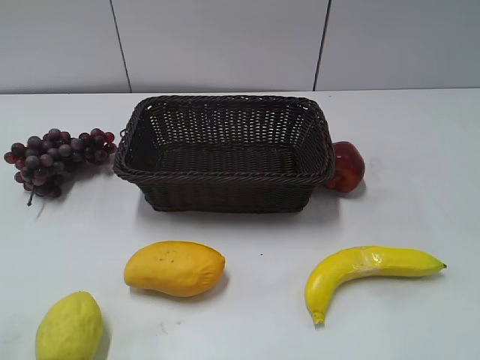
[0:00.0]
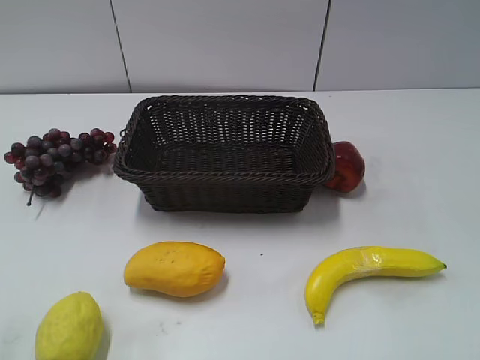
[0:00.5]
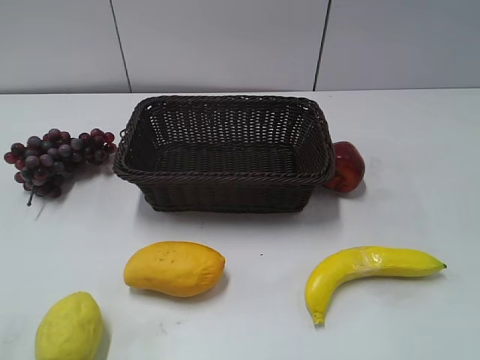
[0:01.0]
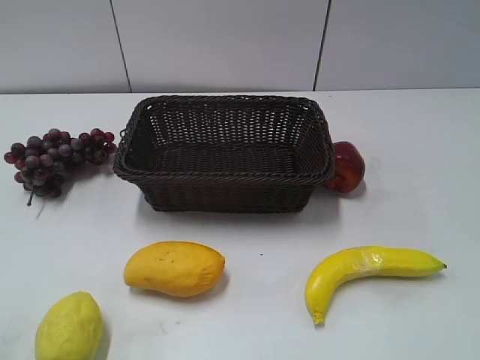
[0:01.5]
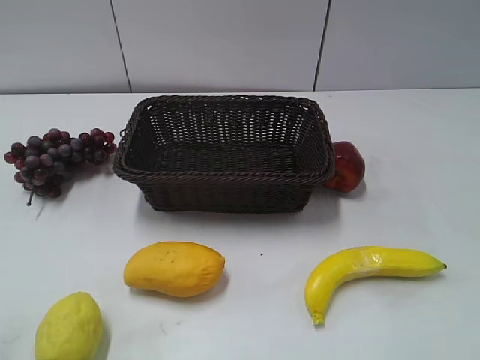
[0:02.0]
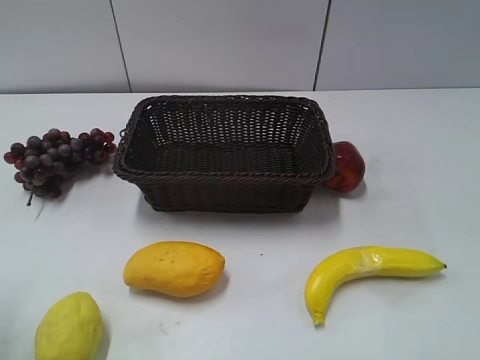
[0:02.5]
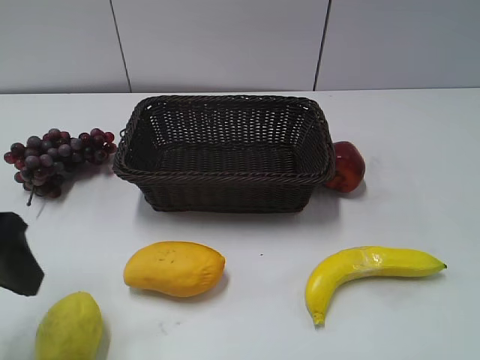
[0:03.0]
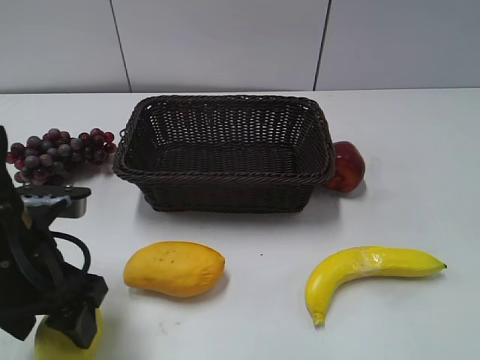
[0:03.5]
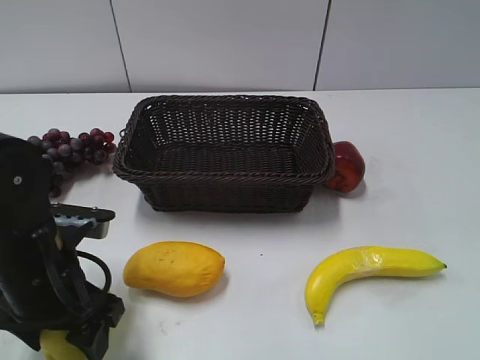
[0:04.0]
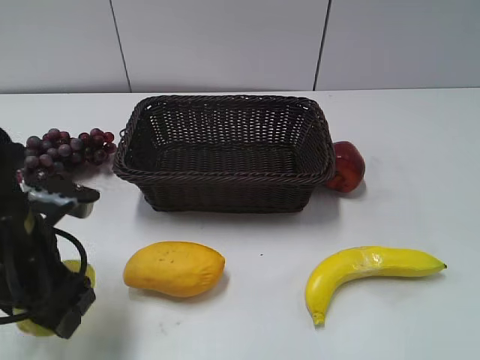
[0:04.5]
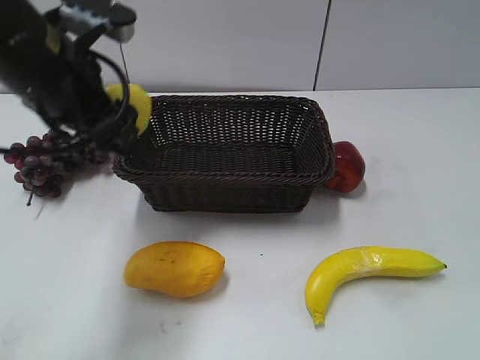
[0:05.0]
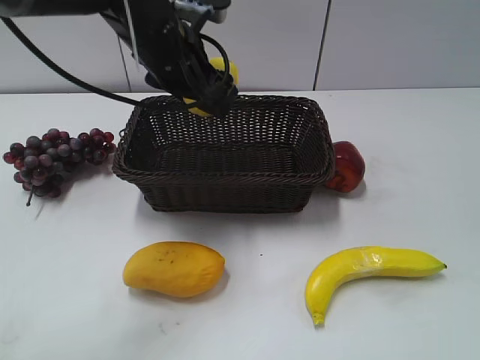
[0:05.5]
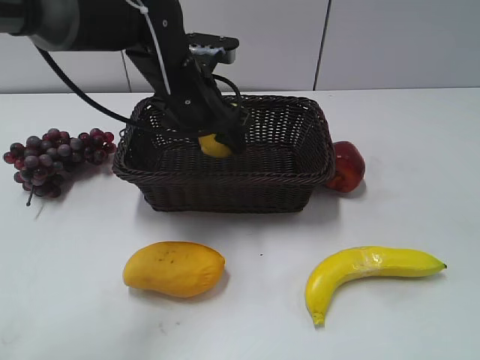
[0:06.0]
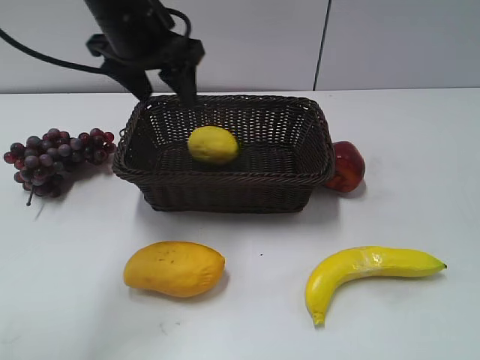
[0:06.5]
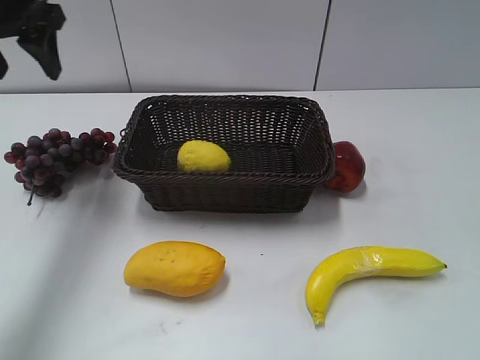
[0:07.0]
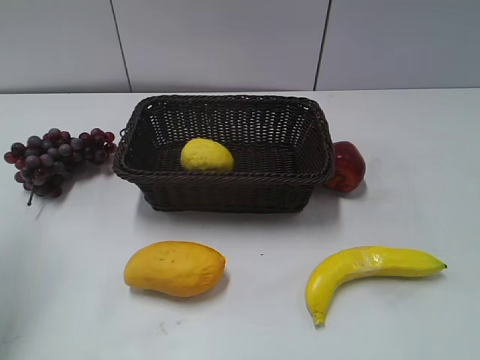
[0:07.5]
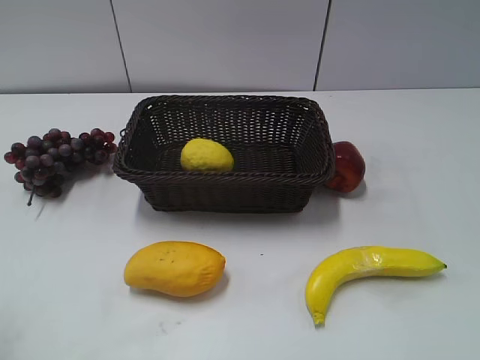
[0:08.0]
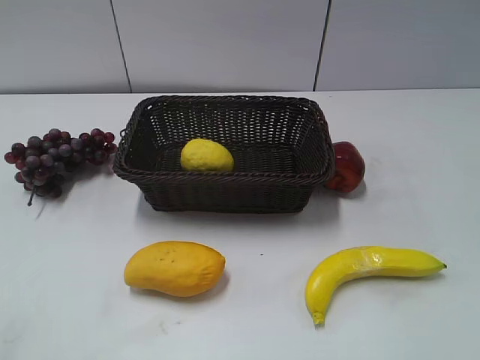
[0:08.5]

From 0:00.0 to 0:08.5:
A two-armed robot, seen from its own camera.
Step, from 0:03.0 to 0:04.0: Grasp the lemon with left gripper.
Step, from 0:04.5 to 0:06.0: Place the lemon in the basket with left gripper.
From 0:02.0 to 0:04.0: The left gripper heads downward, to the right and forward, covering roughly 25 cm.
From 0:04.0 to 0:06.5: The left gripper heads forward and upward, covering roughly 25 cm.
From 0:06.5 to 0:08.5: The left gripper travels backward and to the left by roughly 40 cm.
